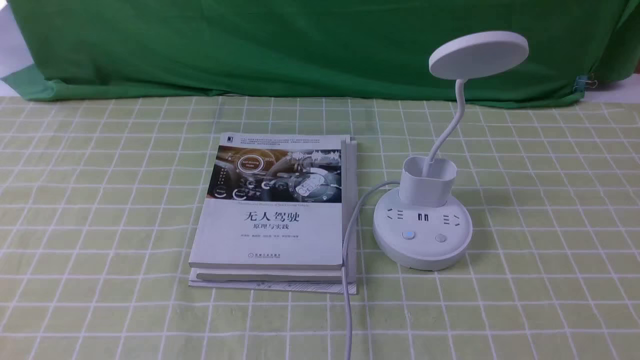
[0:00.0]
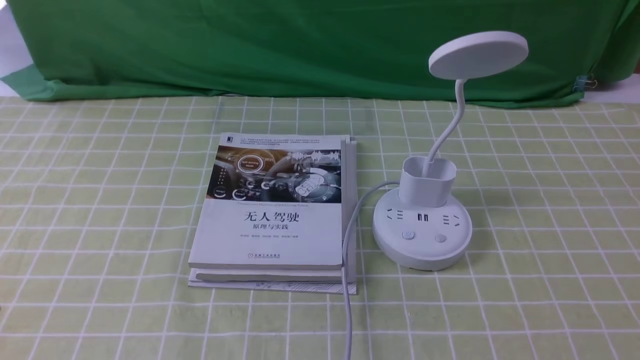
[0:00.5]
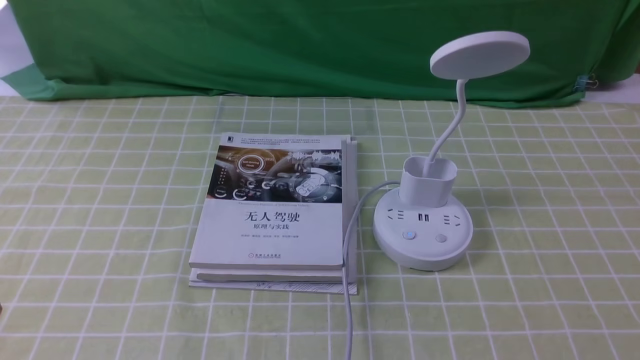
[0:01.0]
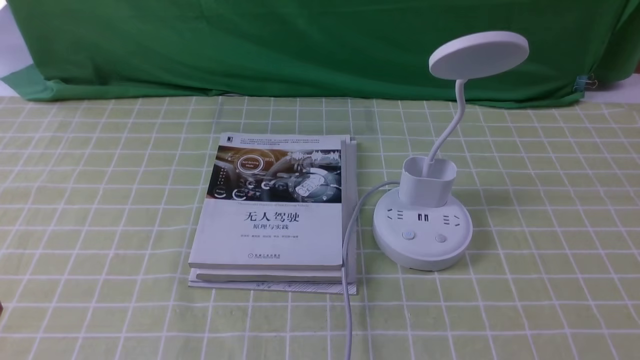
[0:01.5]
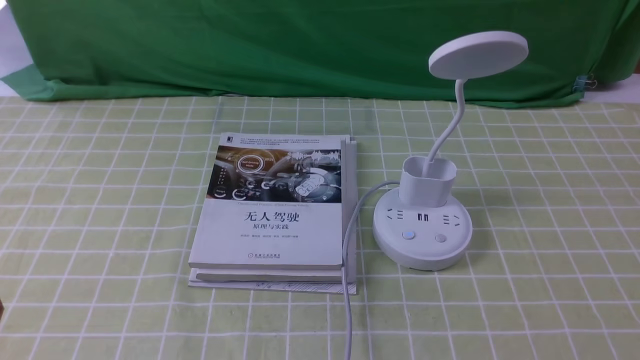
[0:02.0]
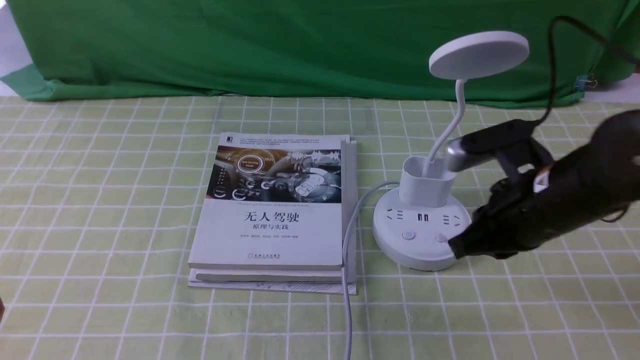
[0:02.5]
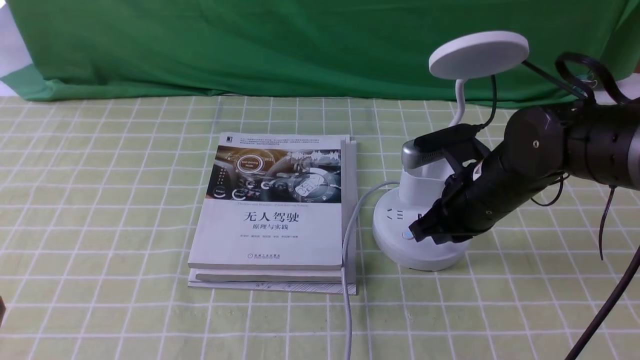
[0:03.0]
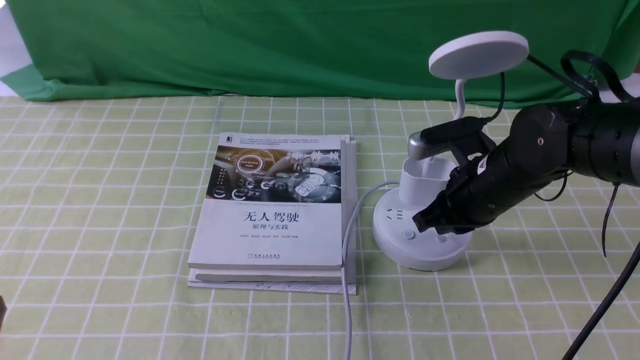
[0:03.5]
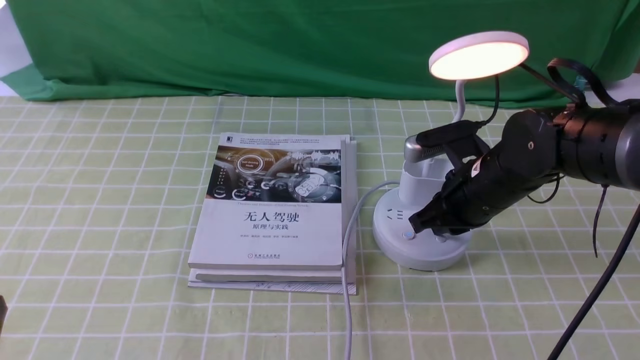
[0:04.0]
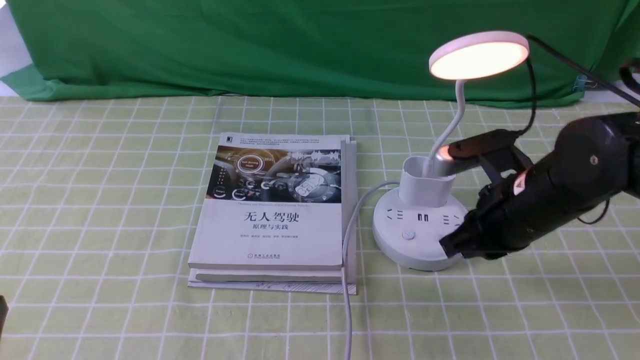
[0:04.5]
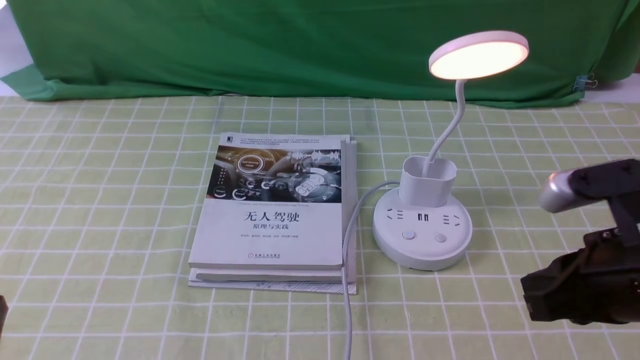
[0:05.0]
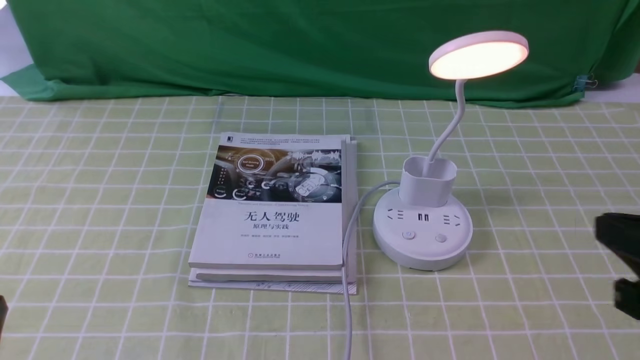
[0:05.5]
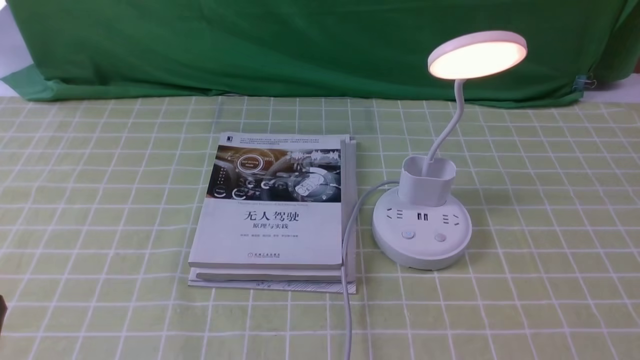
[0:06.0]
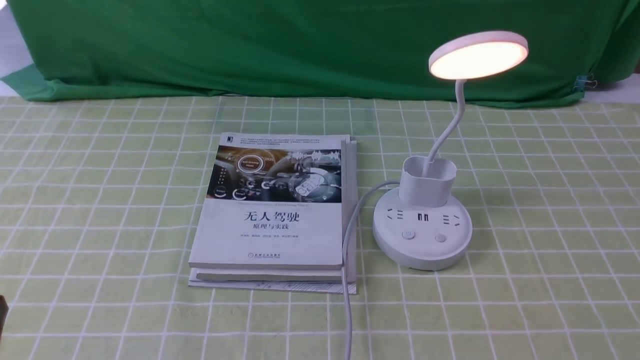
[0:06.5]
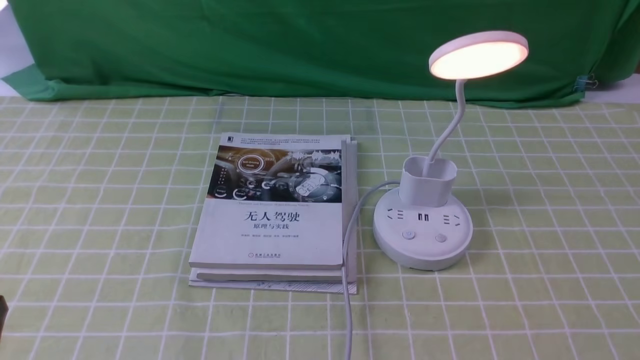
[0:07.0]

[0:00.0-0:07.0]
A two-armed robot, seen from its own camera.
Step, 0:00.0 to 0:04.0: use the right arm to press the button switch on the lamp holder.
0:02.0 to 0:03.5: The right gripper is displaced forward, to the left and downward by about 25 cm.
0:03.5 to 0:05.0: The right gripper heads backward and upward, covering about 20 cm.
0:05.0 to 0:07.0: The right gripper moves backward, to the right and downward, approximately 20 cm.

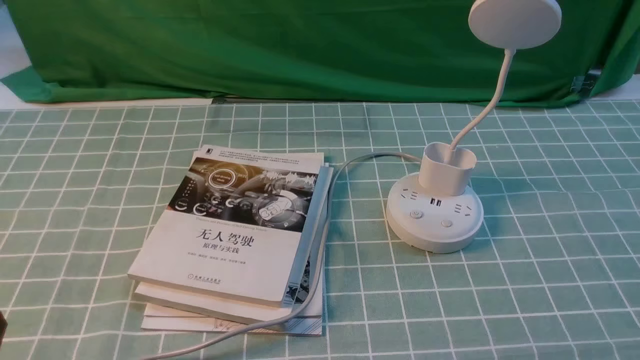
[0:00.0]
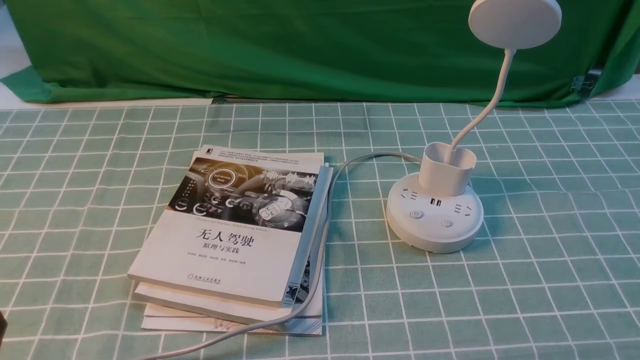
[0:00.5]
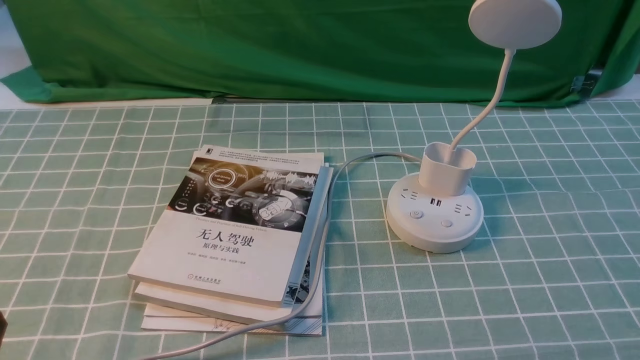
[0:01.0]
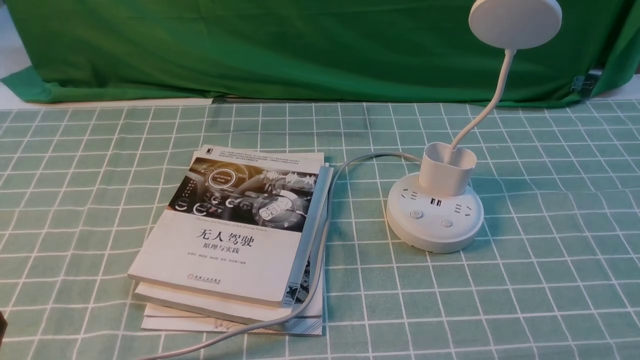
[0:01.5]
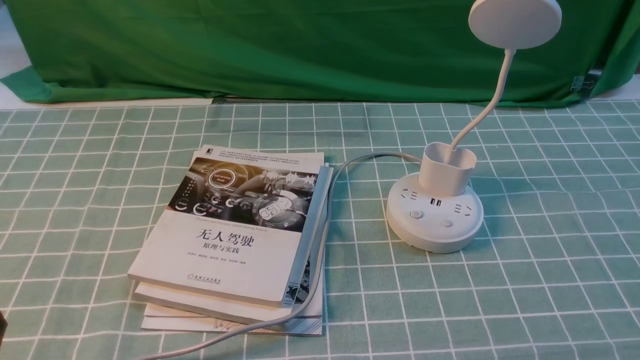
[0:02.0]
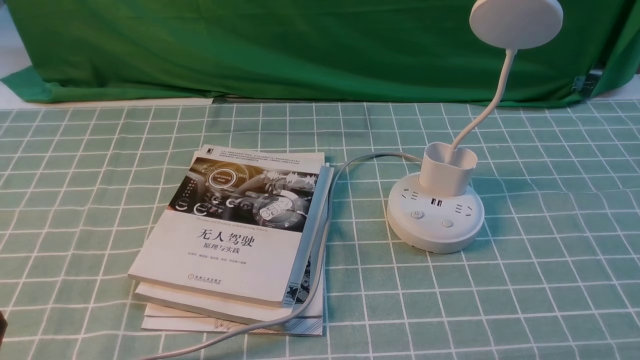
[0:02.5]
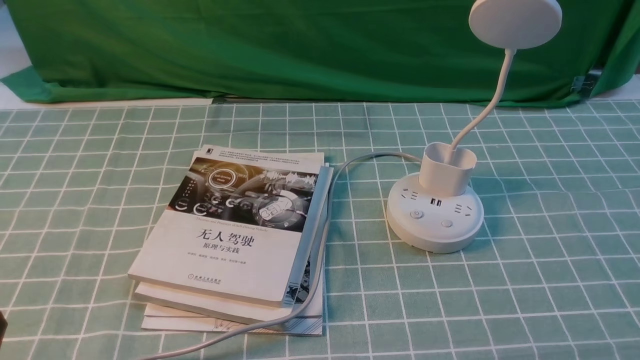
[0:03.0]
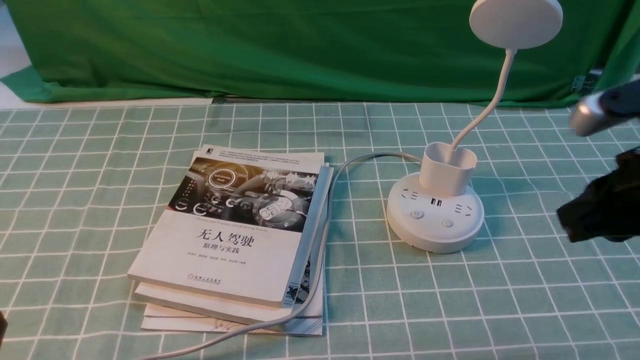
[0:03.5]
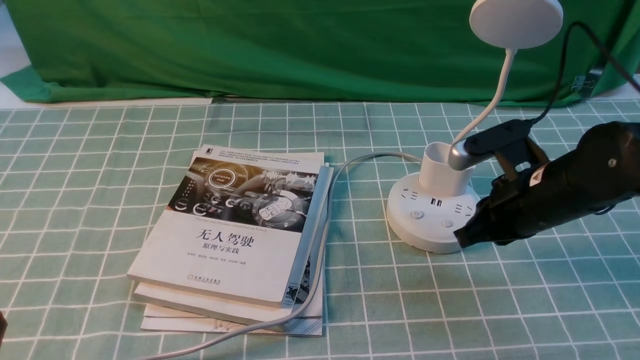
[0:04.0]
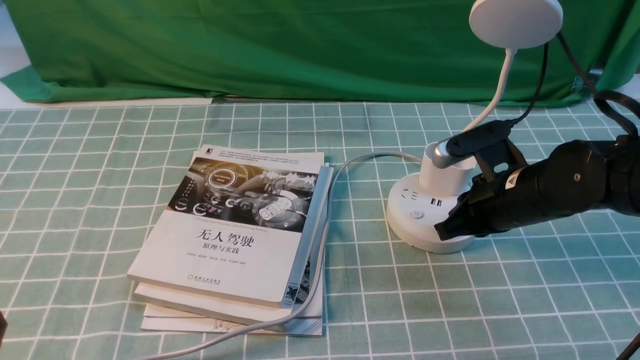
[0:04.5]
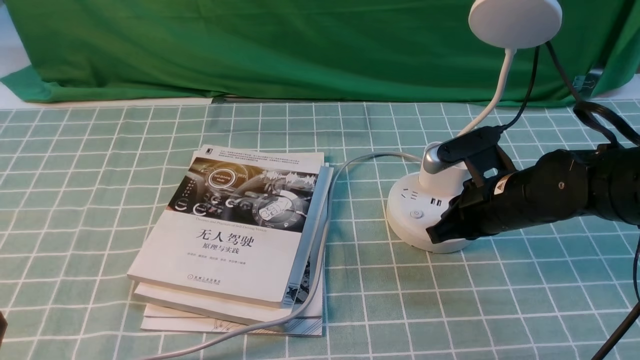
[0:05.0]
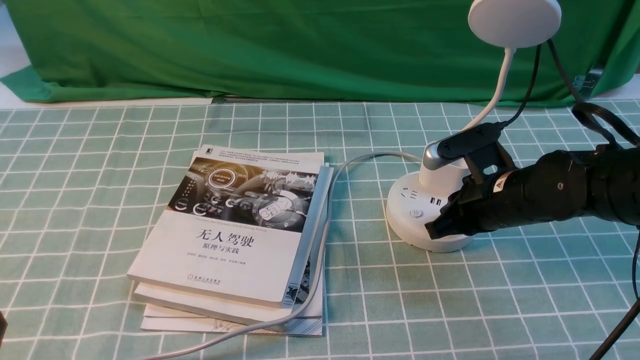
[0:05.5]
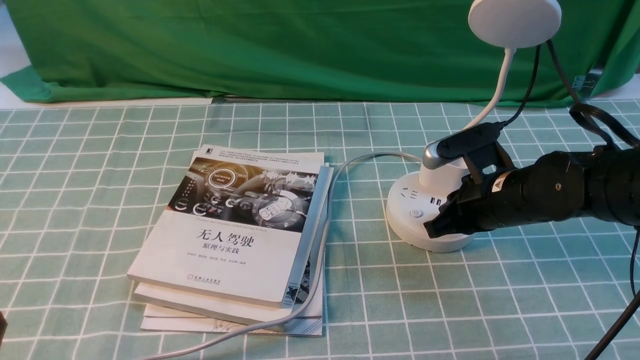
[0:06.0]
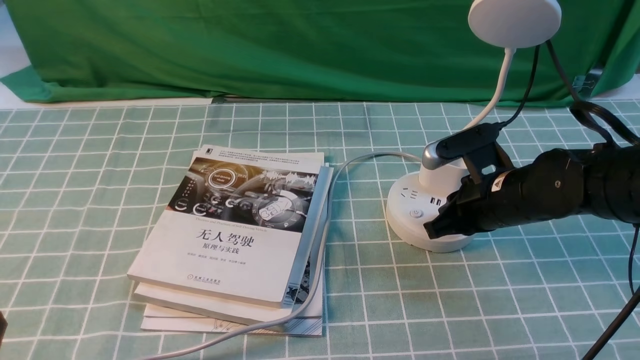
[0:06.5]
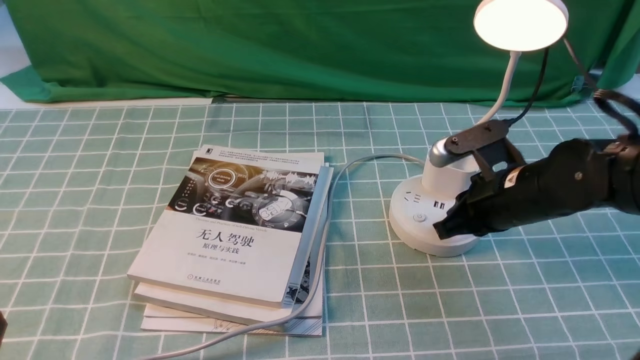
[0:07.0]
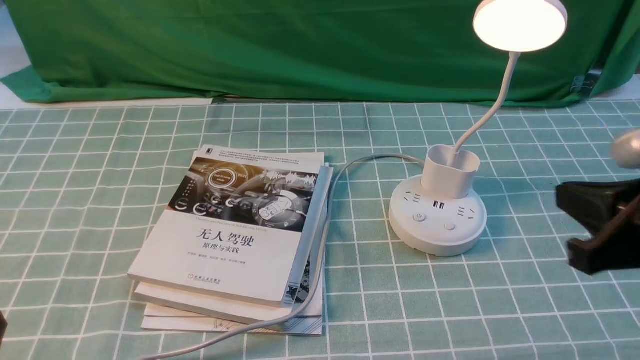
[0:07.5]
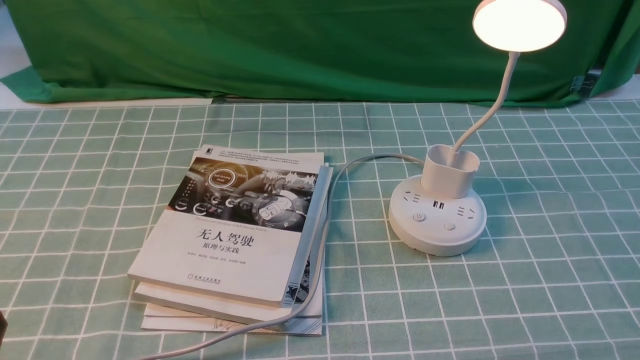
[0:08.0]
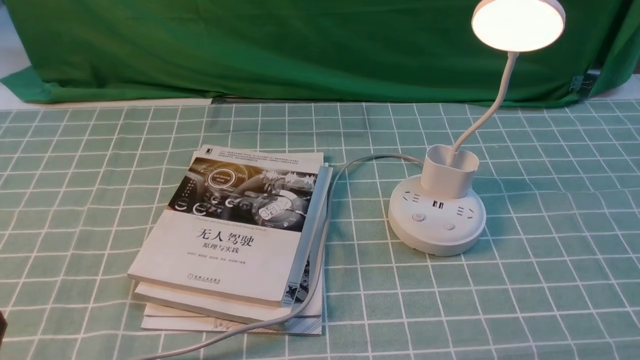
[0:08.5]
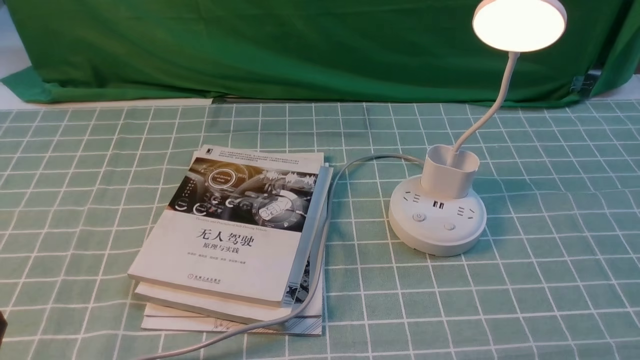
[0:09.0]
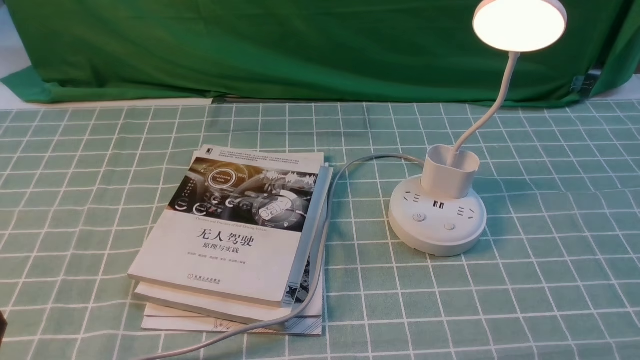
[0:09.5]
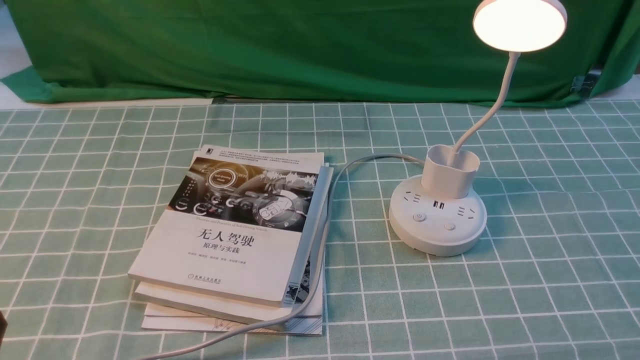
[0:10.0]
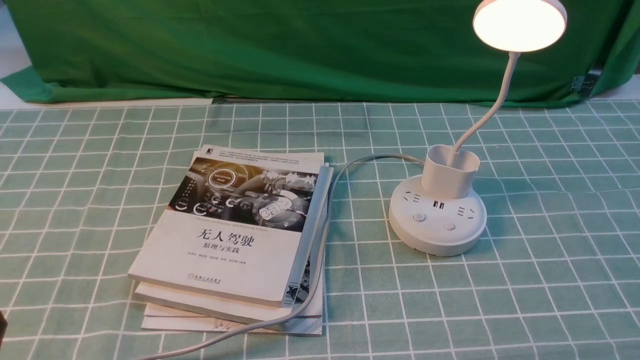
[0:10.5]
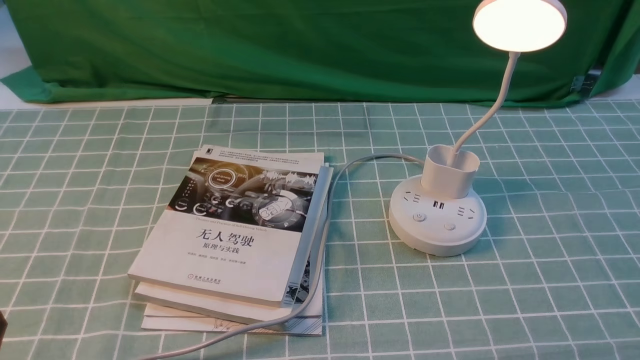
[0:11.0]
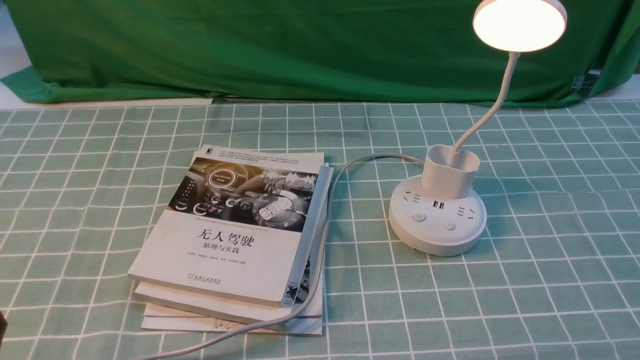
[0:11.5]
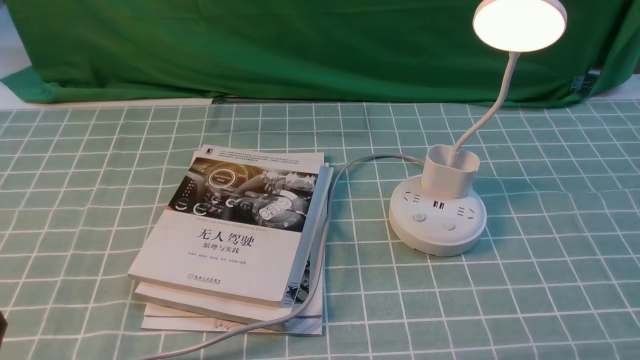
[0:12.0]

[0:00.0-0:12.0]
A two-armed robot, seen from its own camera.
Step, 0:00.0 to 0:07.0: use the right arm to press the button switch on the lamp holder.
0:02.0 to 0:04.0: The right gripper is displaced forward and to the left by roughly 30 cm, and closes.
0:04.0 to 0:06.0: The right gripper moves about 5 cm.
0:06.0 to 0:08.0: The right gripper moves backward, upward and to the right, some 30 cm.
0:10.0 to 0:12.0: The two grippers keep their place.

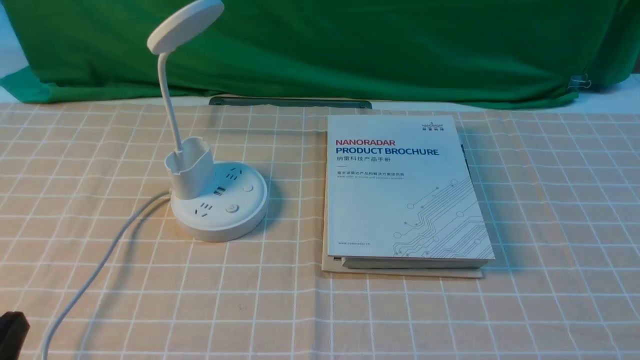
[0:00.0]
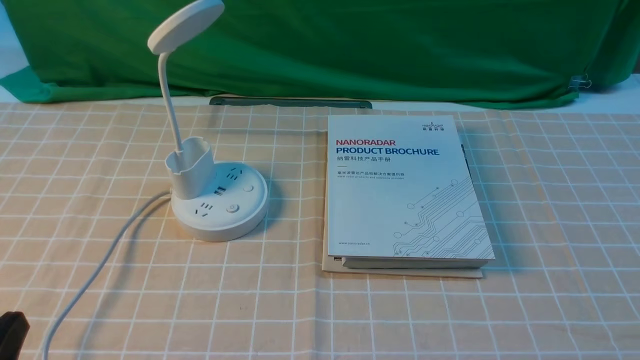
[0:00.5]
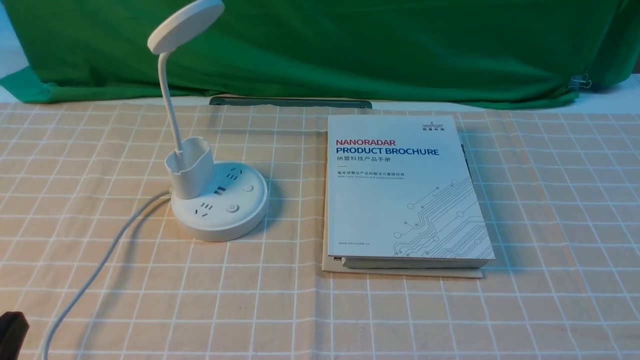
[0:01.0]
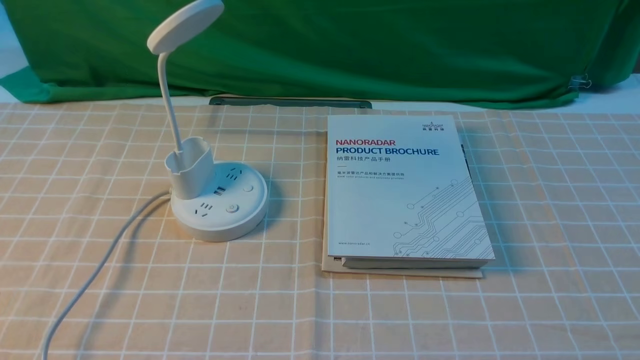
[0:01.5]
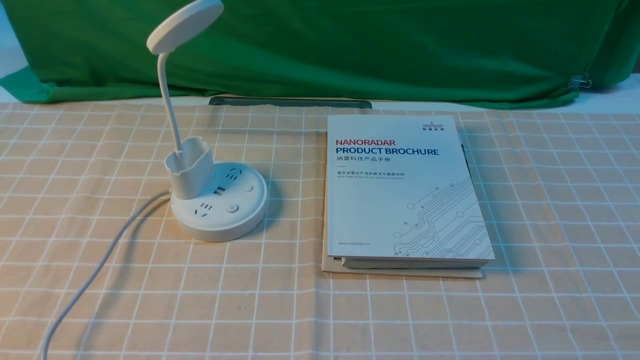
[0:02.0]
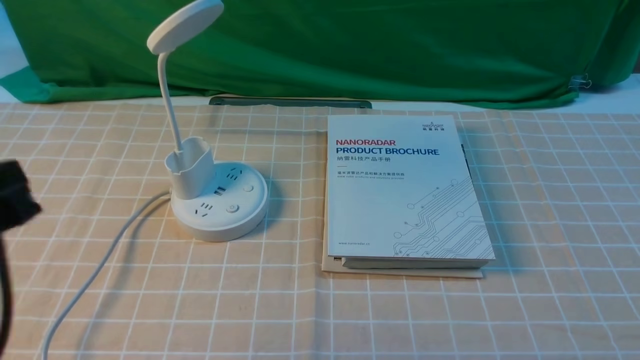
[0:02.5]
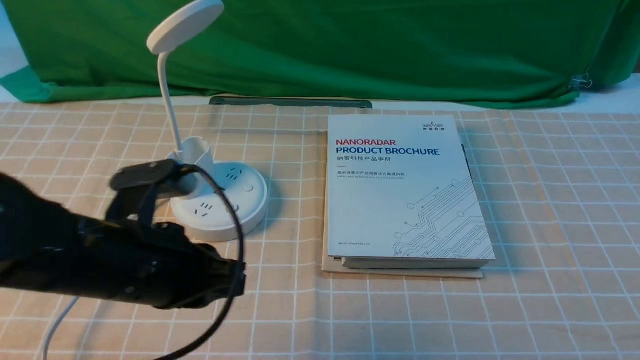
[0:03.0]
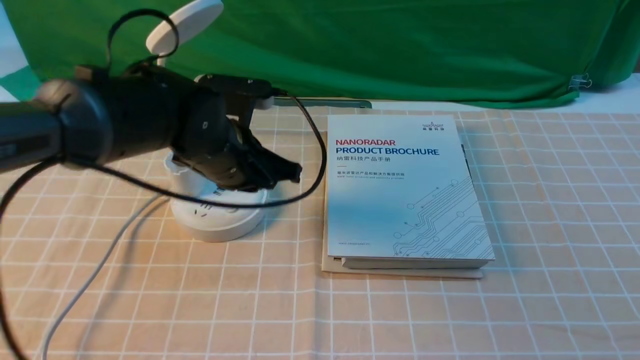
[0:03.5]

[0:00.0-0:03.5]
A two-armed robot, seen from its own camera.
0:02.0 to 0:03.5: The left gripper goes roughly 35 cm forward and to the right, and closes up.
